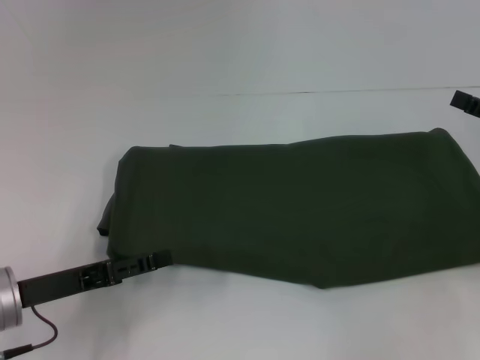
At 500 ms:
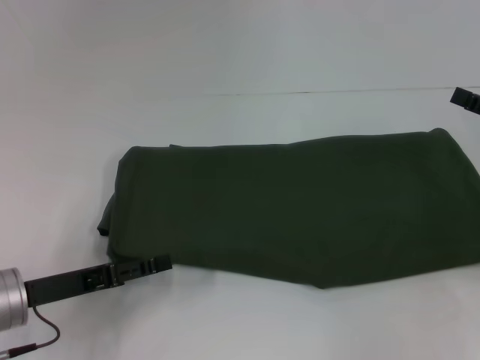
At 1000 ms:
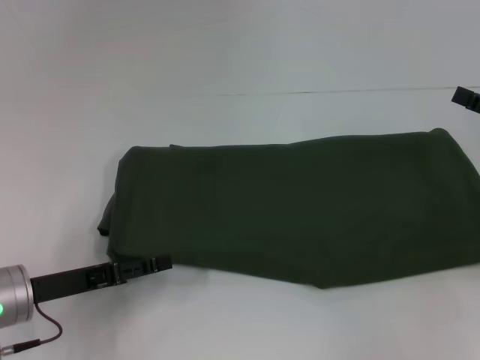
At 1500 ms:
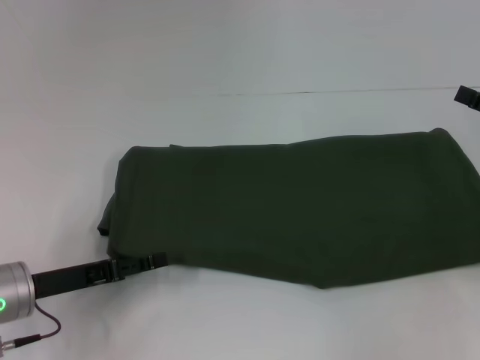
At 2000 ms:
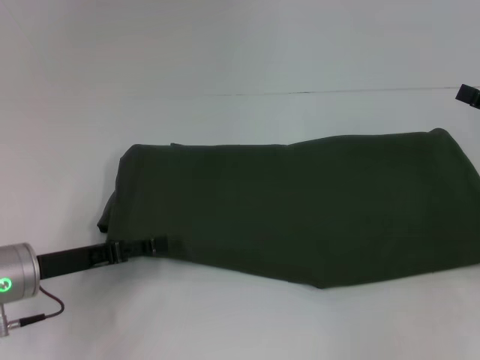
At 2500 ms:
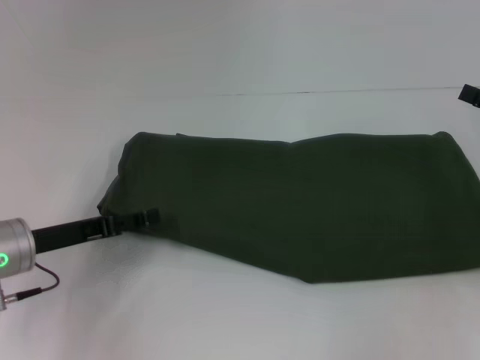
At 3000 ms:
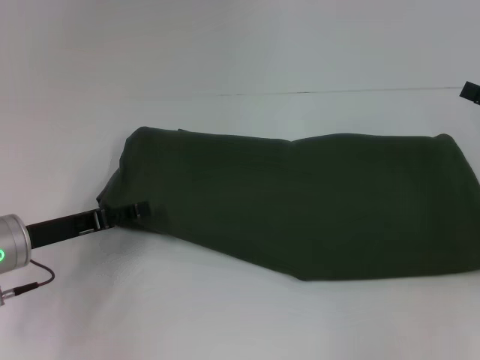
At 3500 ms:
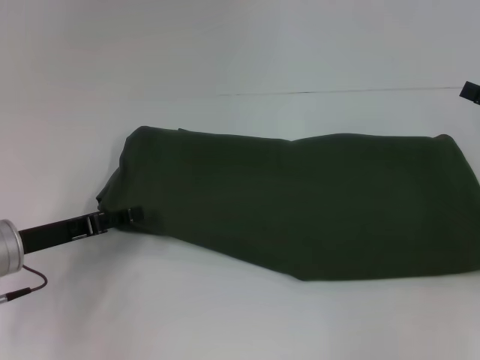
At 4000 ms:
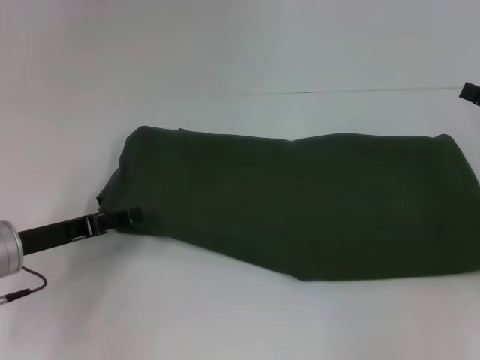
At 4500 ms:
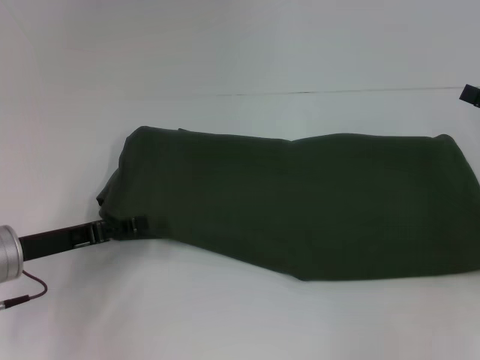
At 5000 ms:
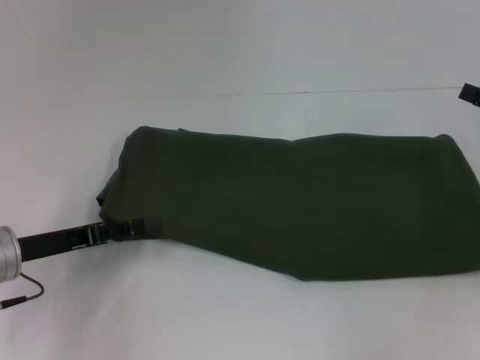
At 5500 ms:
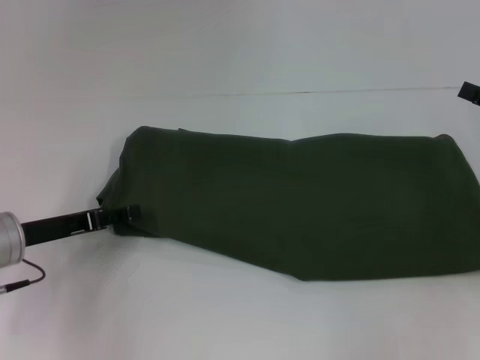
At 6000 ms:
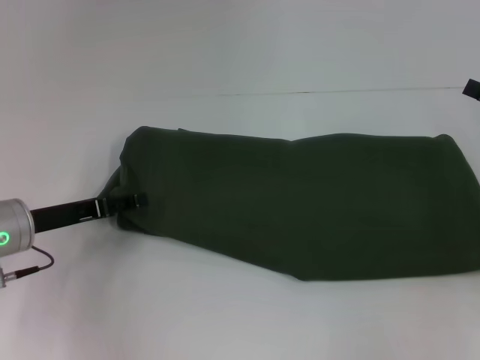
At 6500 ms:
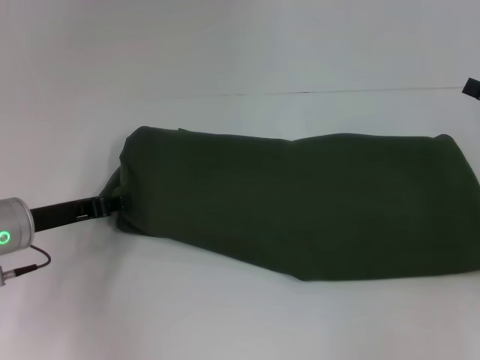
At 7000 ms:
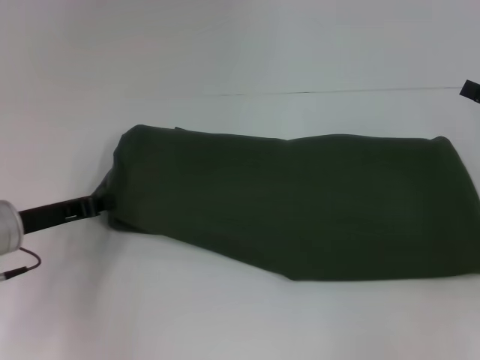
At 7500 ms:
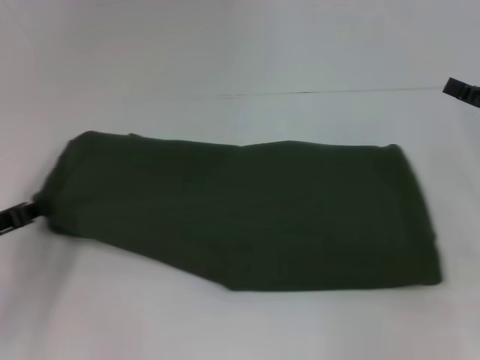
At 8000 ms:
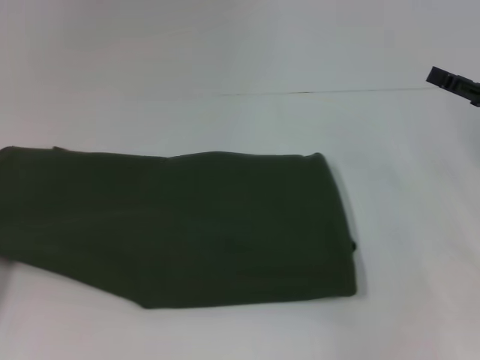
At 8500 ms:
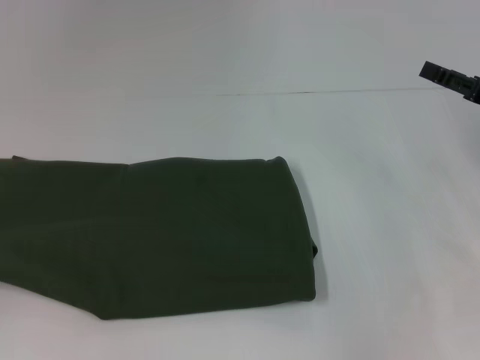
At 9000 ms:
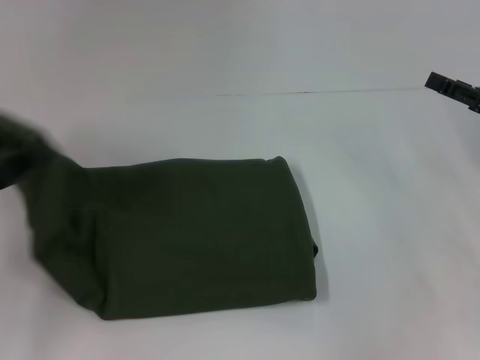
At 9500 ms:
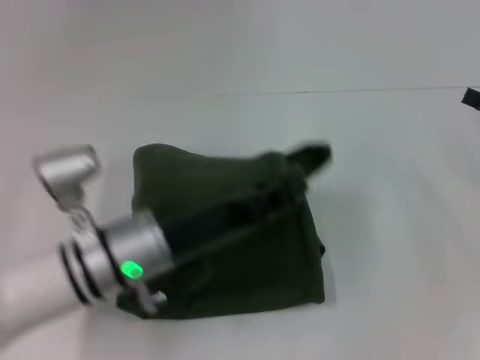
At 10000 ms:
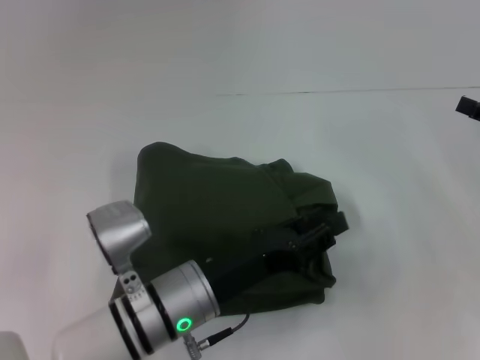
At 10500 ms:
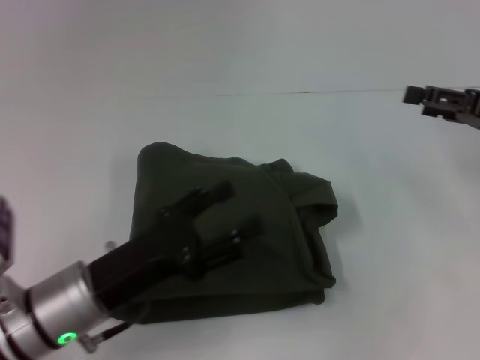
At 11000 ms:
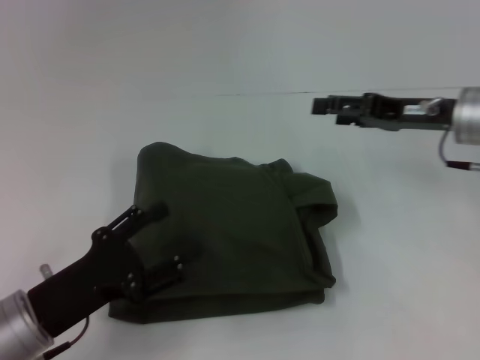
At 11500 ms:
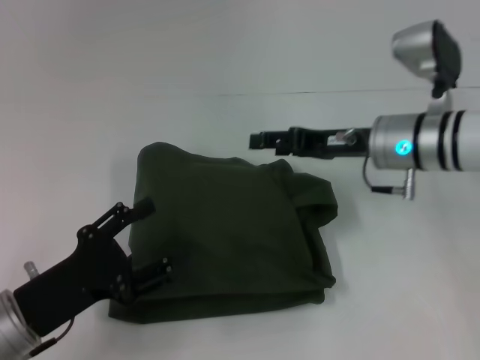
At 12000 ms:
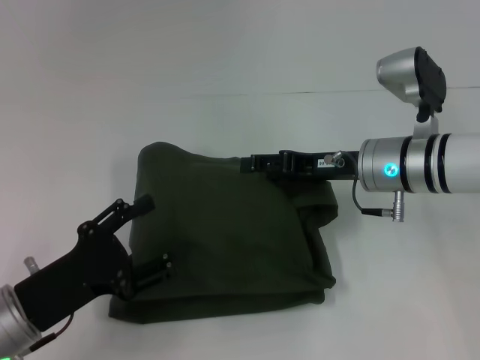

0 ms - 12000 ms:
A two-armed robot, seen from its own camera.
Step, 0 ms - 10000 ms: Fold the clothes with your left hand.
0 ms - 4000 ms: The grippers stay close to where they were, moving slightly.
4000 ms - 6000 ms: The grippers stay close to where they were, moving slightly.
6000 ms - 8000 ms: The left gripper travels to the left and backward by approximately 15 cm, and closes its fingers.
8000 ms - 10000 ms: The left gripper is displaced to the right by about 30 cm.
10000 ms - 12000 ms: The grippers both shift to the left by about 20 cm. The left gripper opens up.

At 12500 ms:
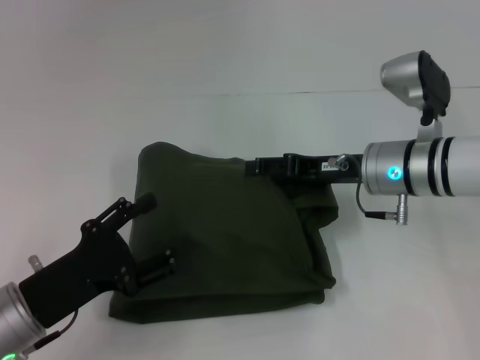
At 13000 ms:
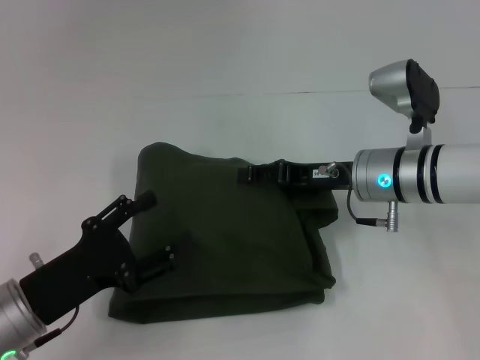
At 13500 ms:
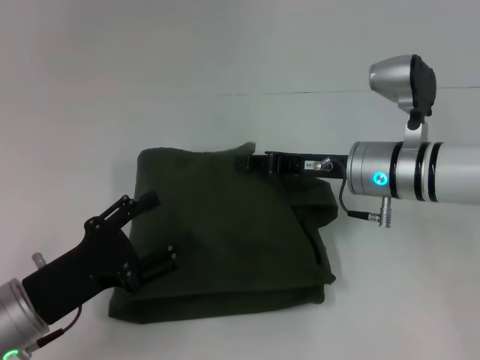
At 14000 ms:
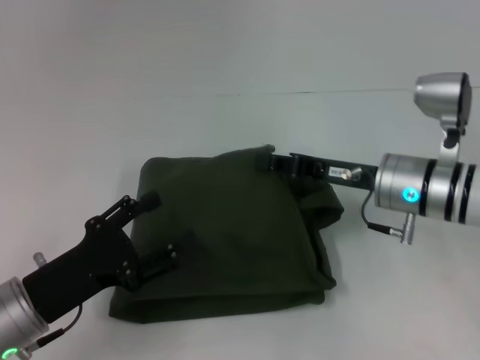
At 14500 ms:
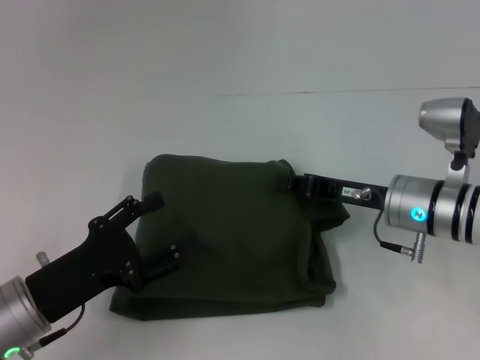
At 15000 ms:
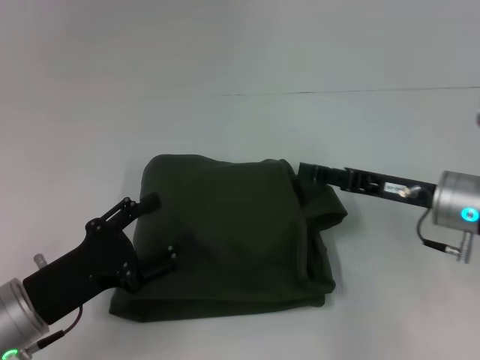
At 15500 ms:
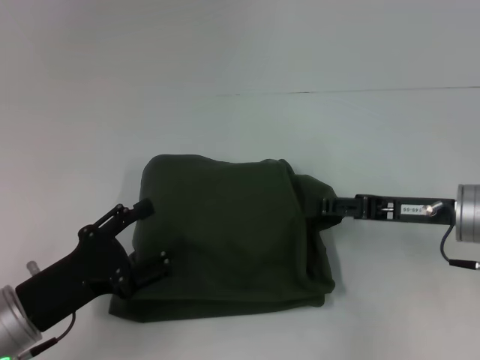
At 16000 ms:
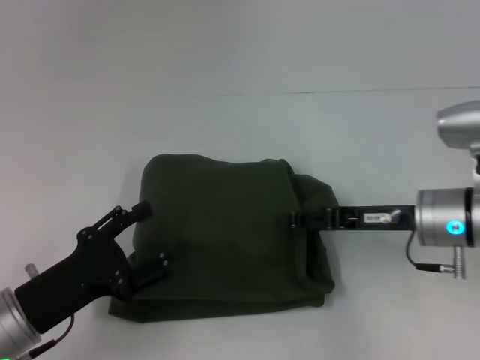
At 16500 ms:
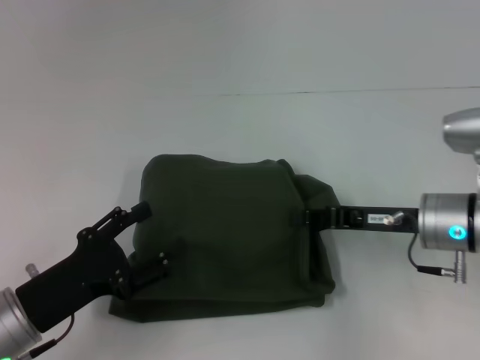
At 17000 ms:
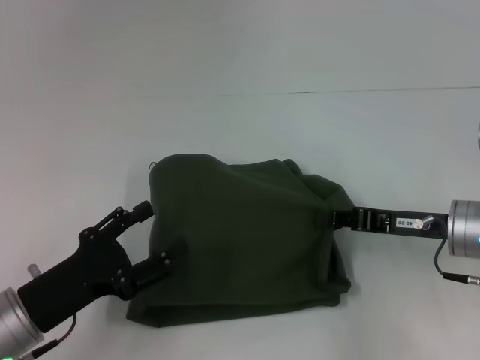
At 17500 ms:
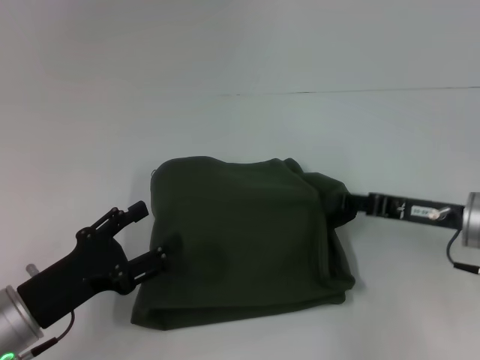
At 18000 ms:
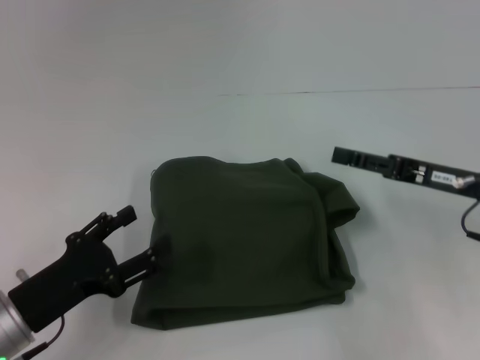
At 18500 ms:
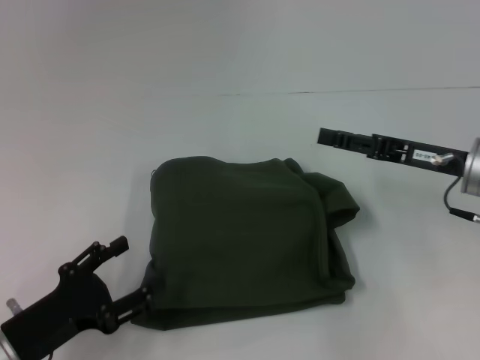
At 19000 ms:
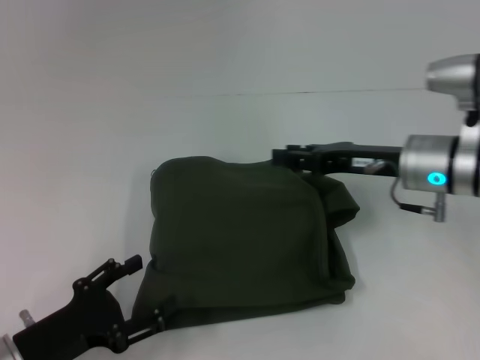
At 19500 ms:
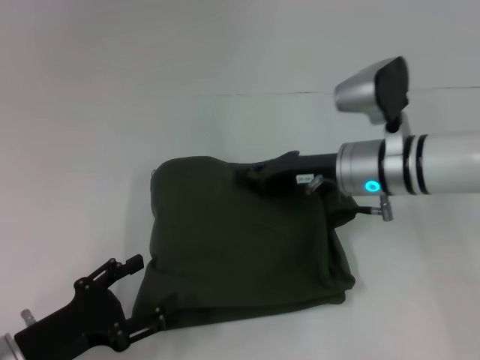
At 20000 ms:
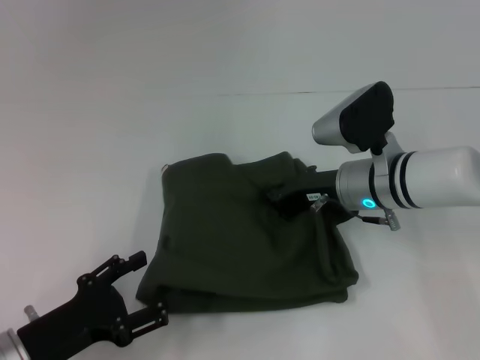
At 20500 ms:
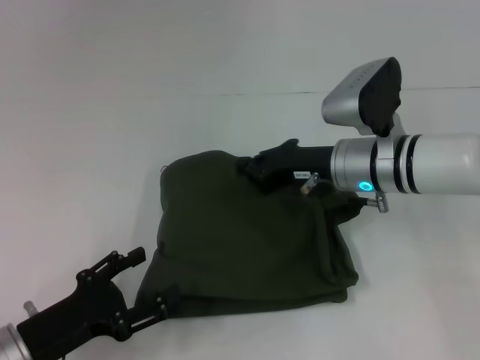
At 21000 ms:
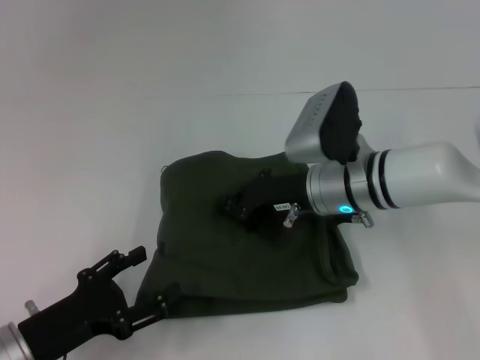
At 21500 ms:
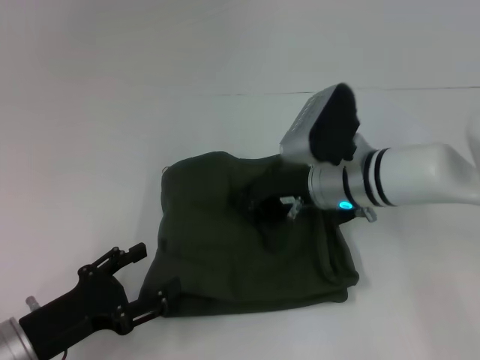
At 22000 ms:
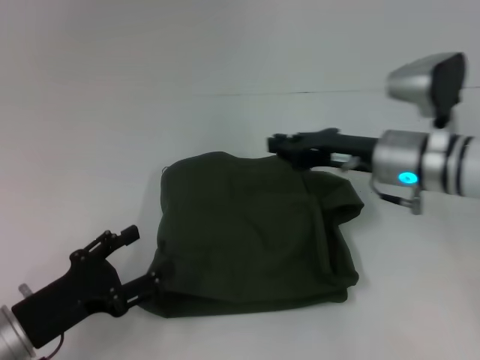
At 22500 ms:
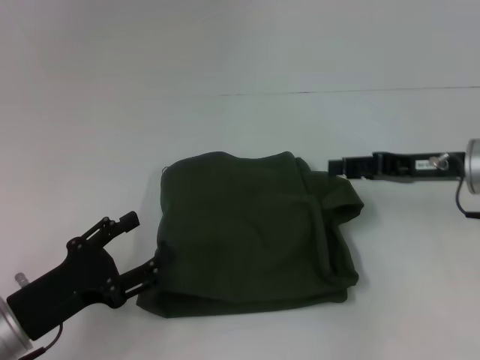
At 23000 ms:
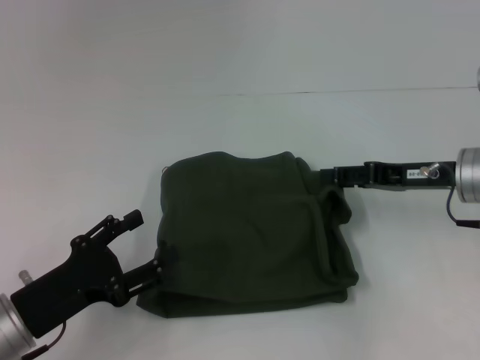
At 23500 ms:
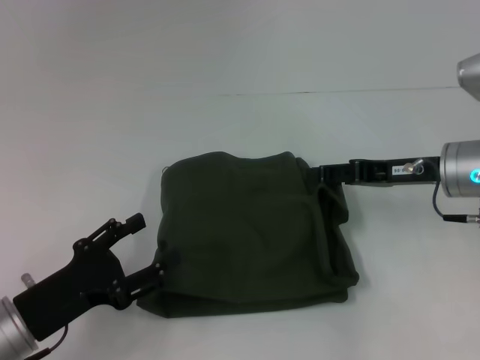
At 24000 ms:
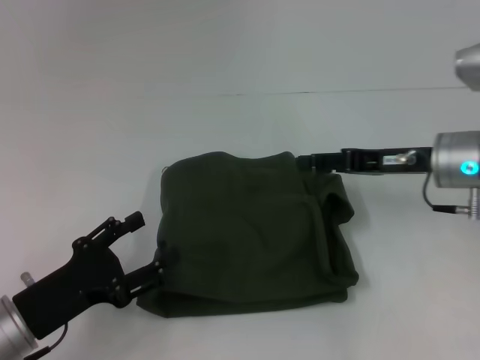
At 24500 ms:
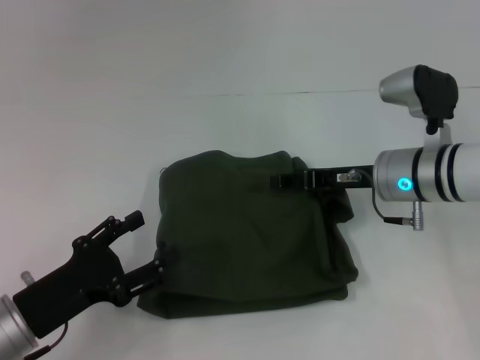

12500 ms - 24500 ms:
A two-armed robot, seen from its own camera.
12500 ms - 14500 ms: The right gripper ends up about 5 cm from where it was, and closes up.
14500 ms - 16500 ms: The right gripper opens, then closes once more.
16500 ms - 18500 ms: The right gripper changes place by about 5 cm, and opens up.
18500 ms - 20500 ms: The right gripper moves to the left, approximately 10 cm, and closes.
20500 ms - 22500 ms: The right gripper shifts approximately 15 cm to the right, and opens.
22500 ms - 24500 ms: The right gripper travels to the left by roughly 10 cm.

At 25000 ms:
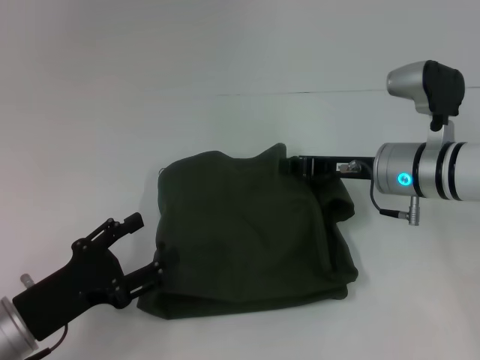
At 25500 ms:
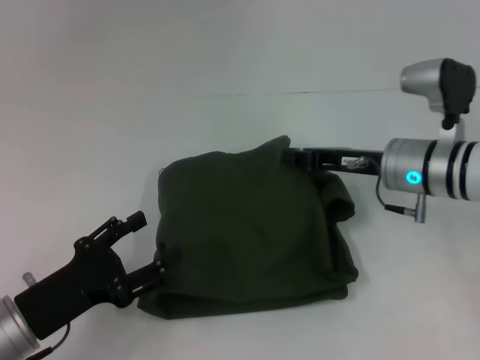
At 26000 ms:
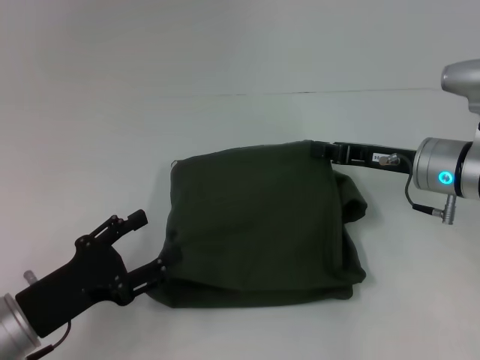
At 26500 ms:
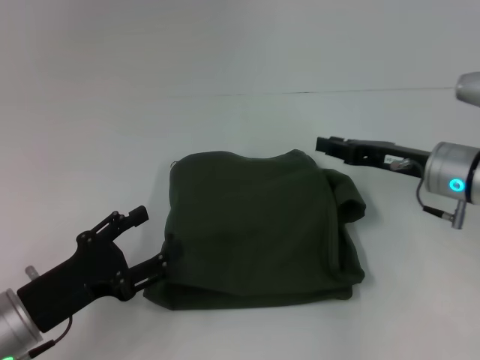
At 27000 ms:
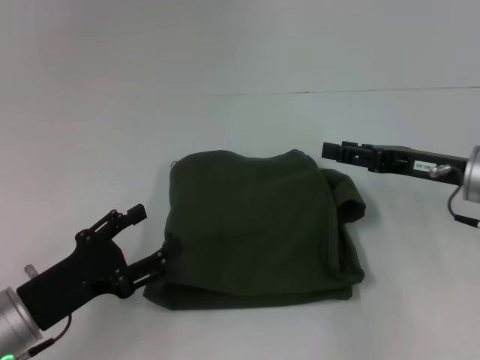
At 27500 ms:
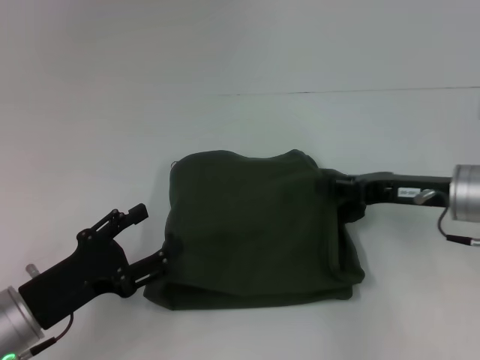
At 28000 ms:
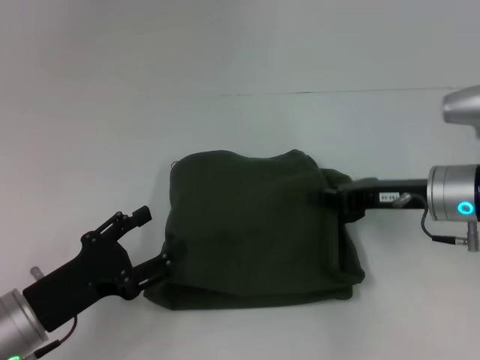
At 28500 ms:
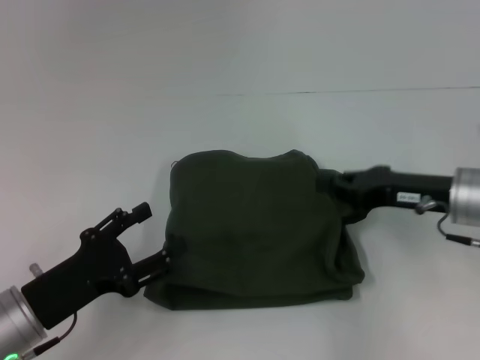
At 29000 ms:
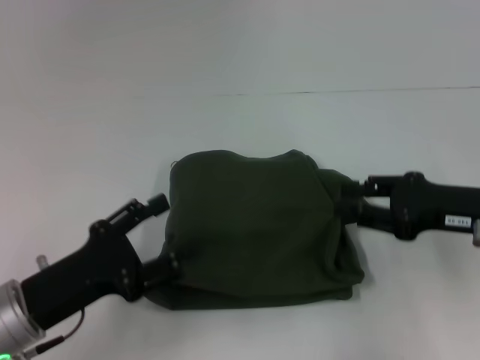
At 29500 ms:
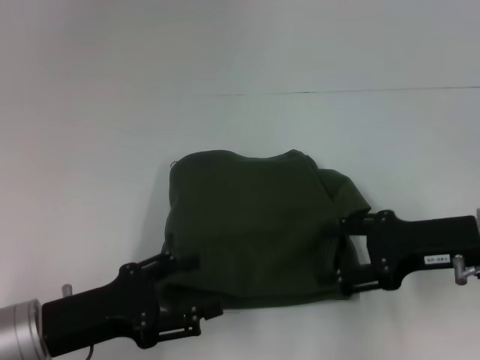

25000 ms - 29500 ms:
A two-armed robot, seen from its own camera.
25000 ms - 27000 ms: The right gripper shifts some 10 cm to the right, and opens up.
27000 ms - 29500 ms: The right gripper shifts approximately 5 cm backward, and closes and opens again.
